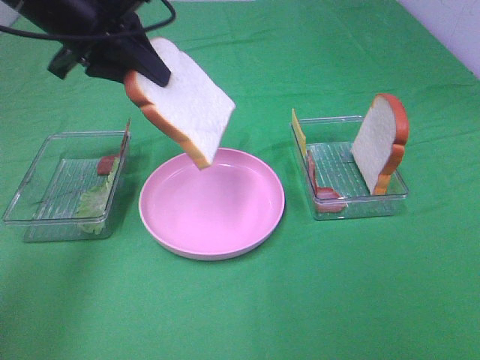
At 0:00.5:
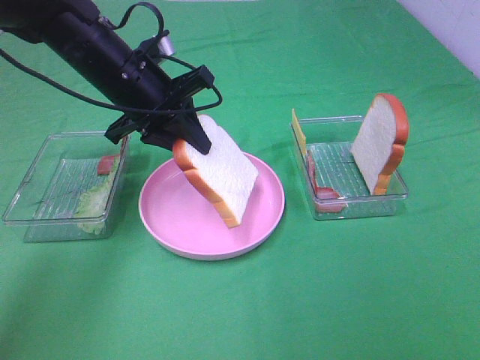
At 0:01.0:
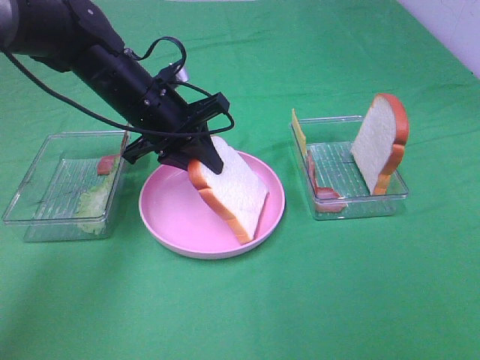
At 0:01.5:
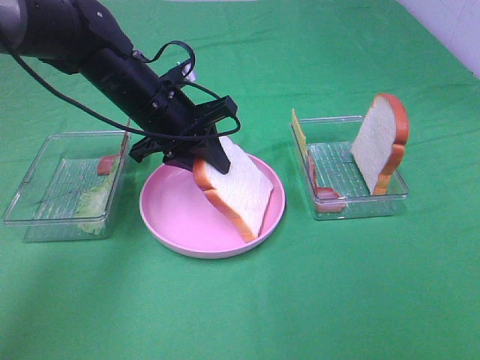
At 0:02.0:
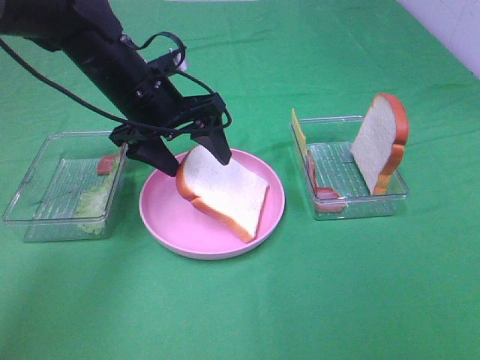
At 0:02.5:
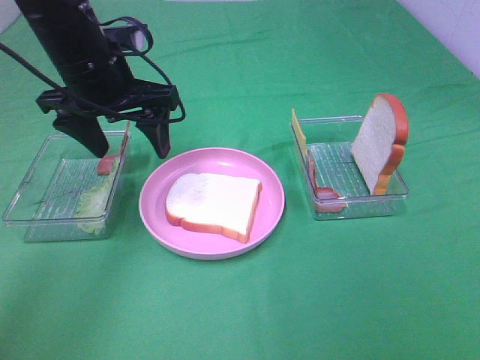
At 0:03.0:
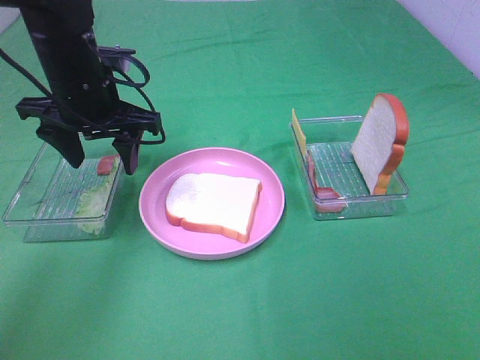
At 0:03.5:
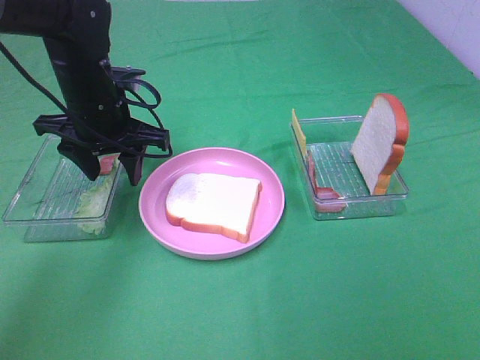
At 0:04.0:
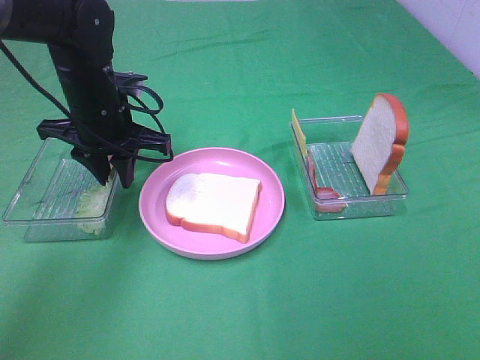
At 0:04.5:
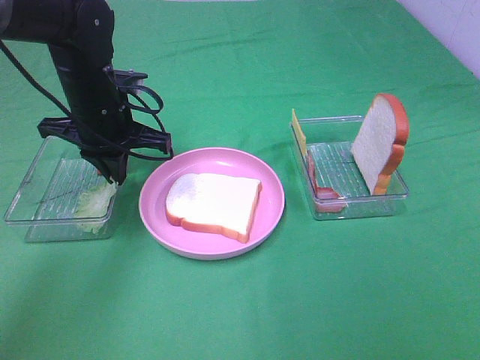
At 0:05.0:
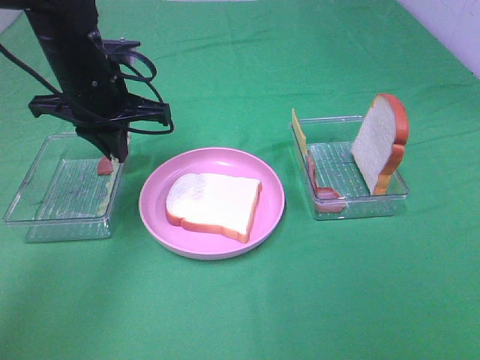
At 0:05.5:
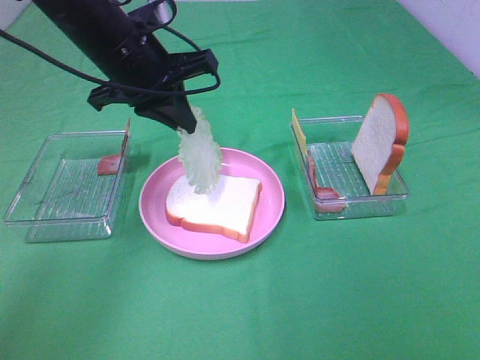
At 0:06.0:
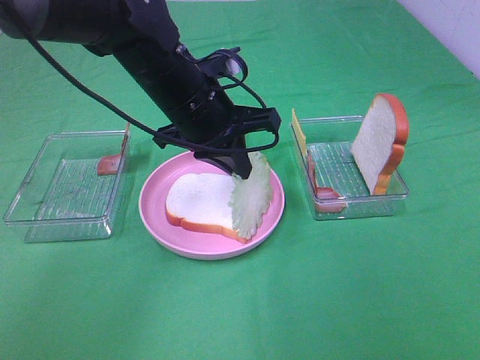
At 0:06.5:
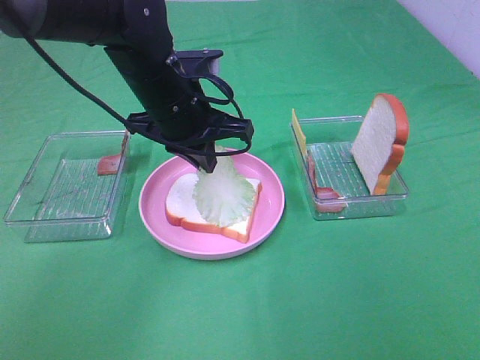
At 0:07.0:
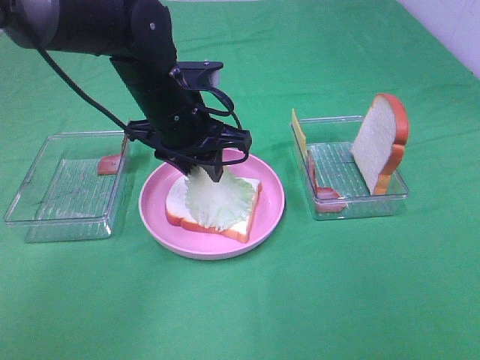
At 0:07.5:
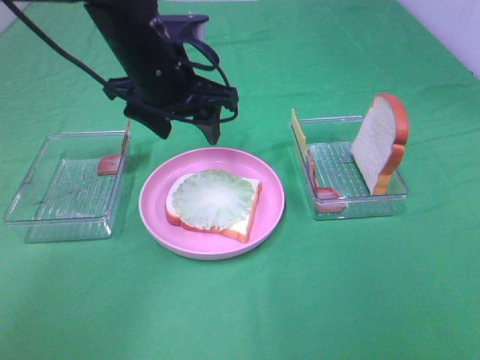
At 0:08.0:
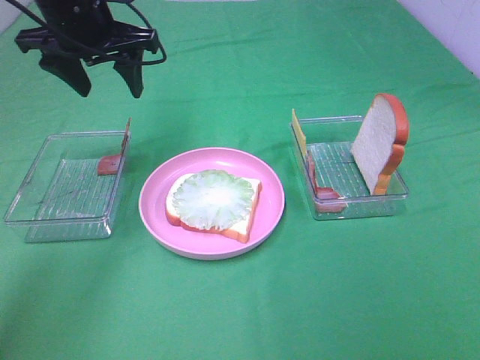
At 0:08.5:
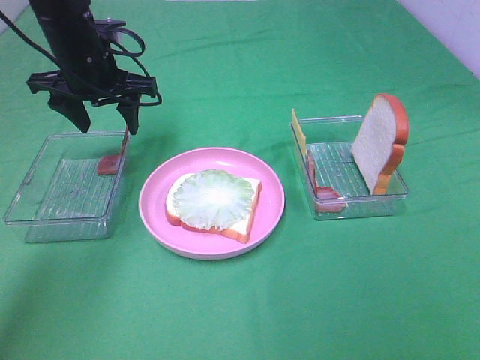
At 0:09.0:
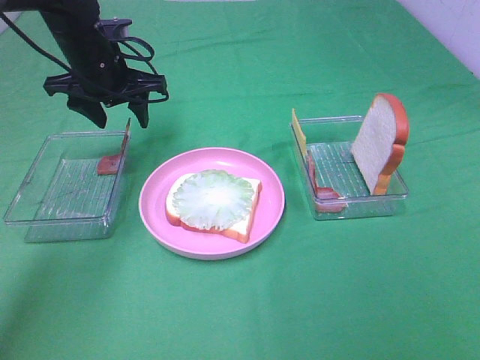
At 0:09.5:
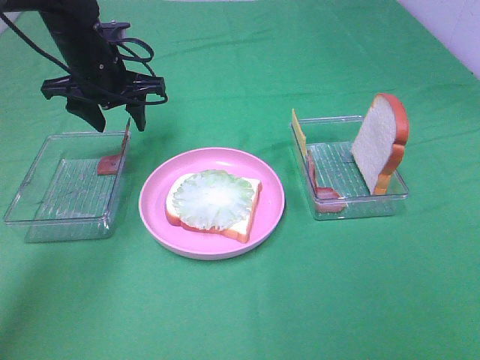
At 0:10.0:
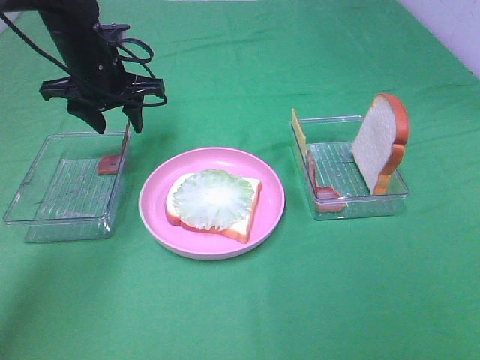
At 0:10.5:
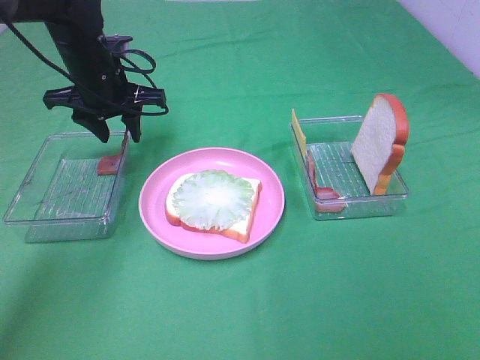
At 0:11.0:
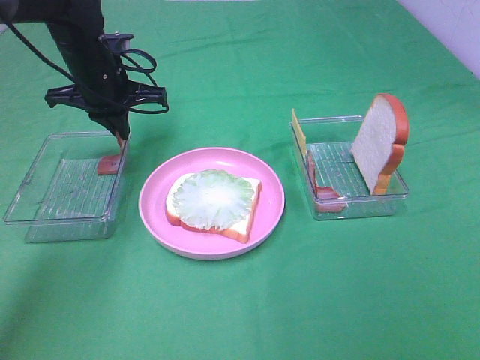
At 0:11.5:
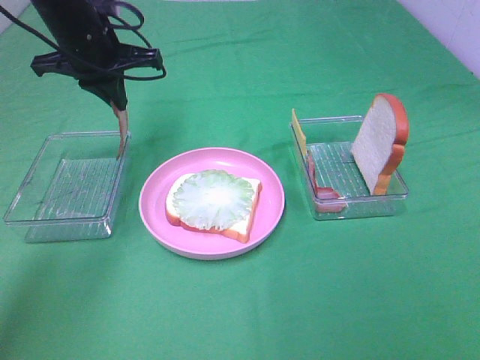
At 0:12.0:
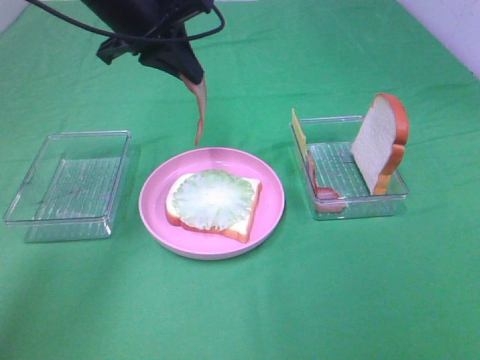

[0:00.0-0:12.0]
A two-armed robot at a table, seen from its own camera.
Task of the whole recording: Make sandwiches.
Step, 0:00.0 to 0:02.0: Left hand:place the bread slice on the plate.
Step, 0:02.5 to 0:04.5: Left hand:grab the lettuce slice.
Step, 0:05.0 to 0:07.0: Left hand:place the lettuce slice on the bread slice.
Step, 0:07.5 to 0:11.0: Left hand:grab the bacon.
0:00.0 to 0:02.0: The left gripper heads downward and to the right, covering about 10 cm, and opens up.
0:02.0 to 0:04.0: The left gripper ends up some 5 cm from where it was, and closes.
0:04.0 to 0:06.0: The left gripper is displaced to the right by some 10 cm.
0:06.0 to 0:08.0: The left gripper is displaced to the left, upward and forward by approximately 15 cm, and opens.
0:08.0 to 0:10.0: The left gripper moves downward, some 10 cm.
0:10.0 to 0:12.0: The left gripper goes roughly 10 cm upward and to the right, and closes.

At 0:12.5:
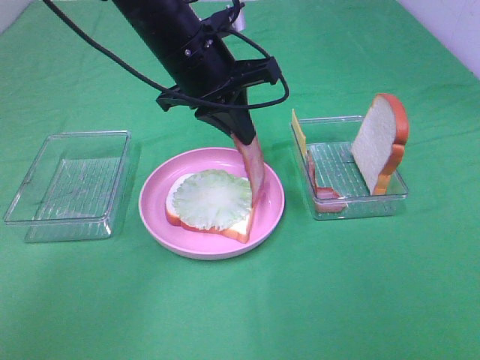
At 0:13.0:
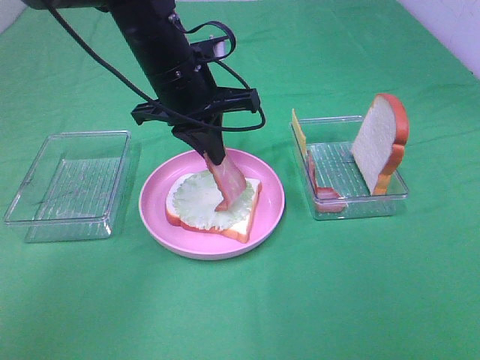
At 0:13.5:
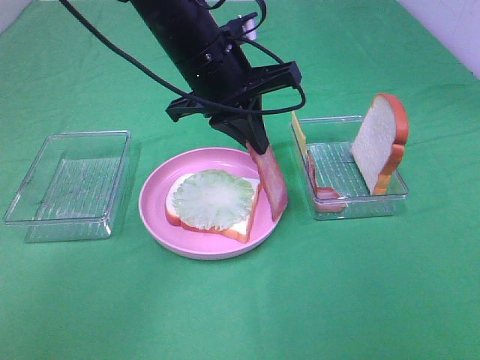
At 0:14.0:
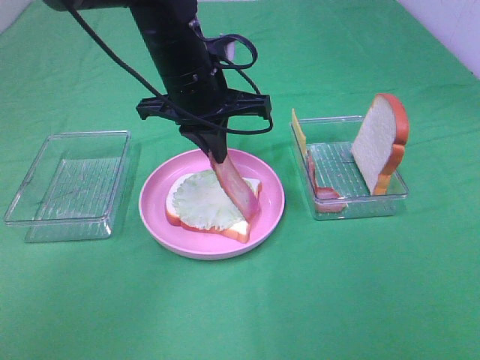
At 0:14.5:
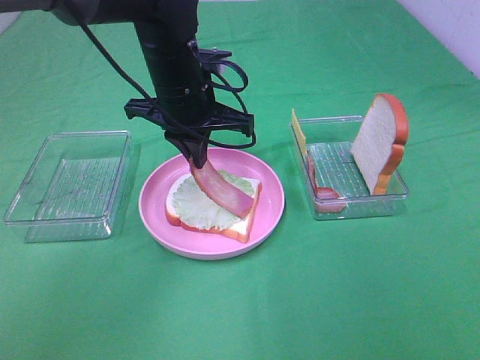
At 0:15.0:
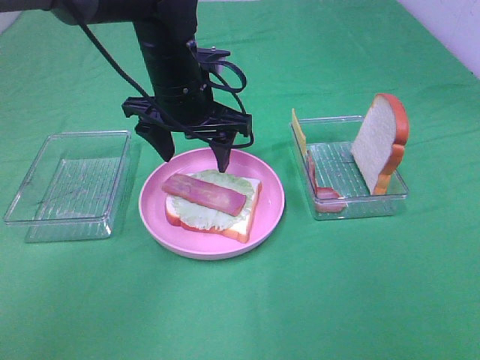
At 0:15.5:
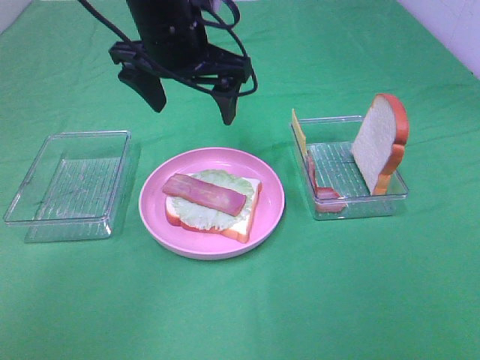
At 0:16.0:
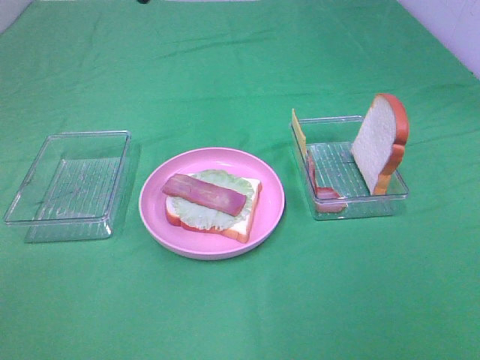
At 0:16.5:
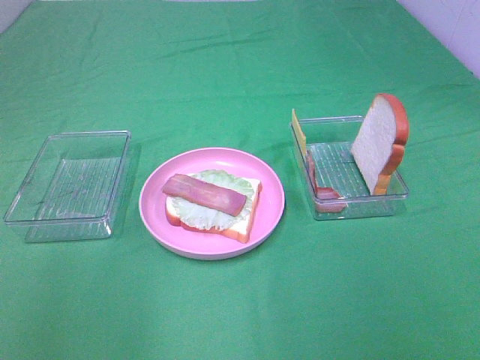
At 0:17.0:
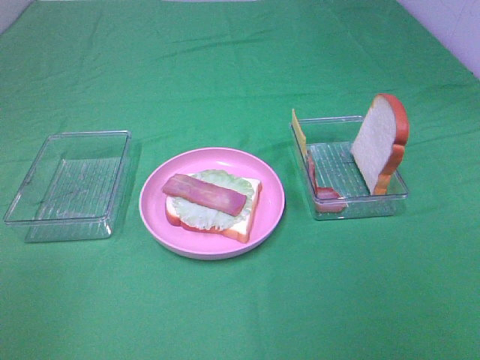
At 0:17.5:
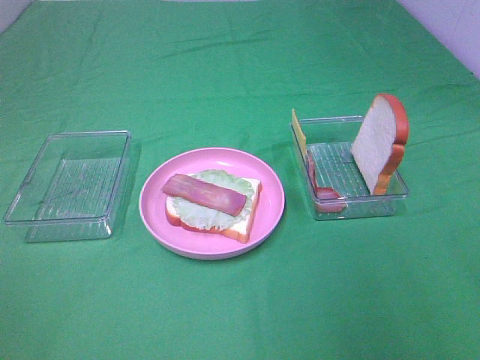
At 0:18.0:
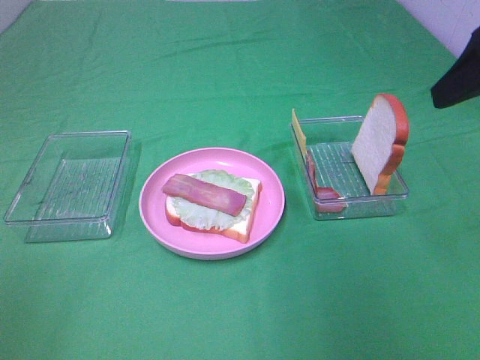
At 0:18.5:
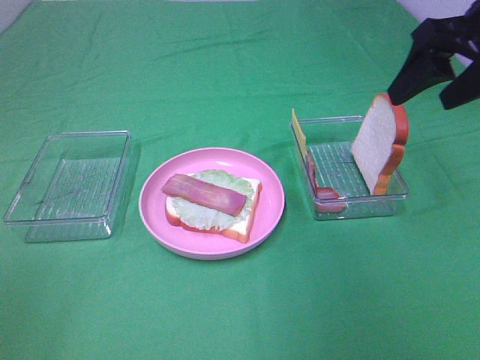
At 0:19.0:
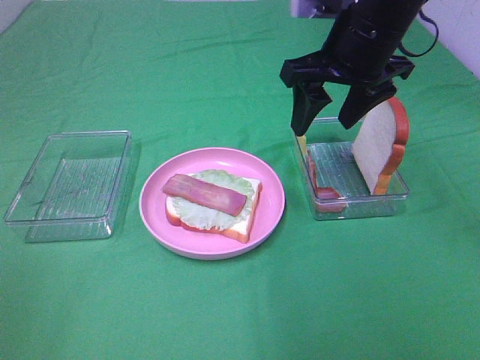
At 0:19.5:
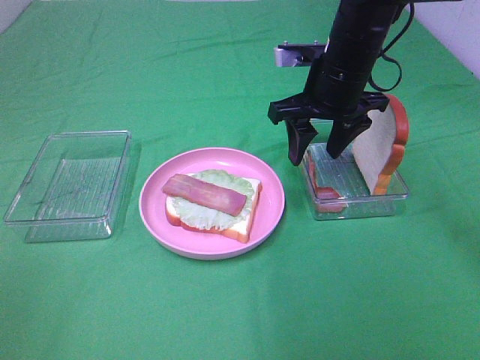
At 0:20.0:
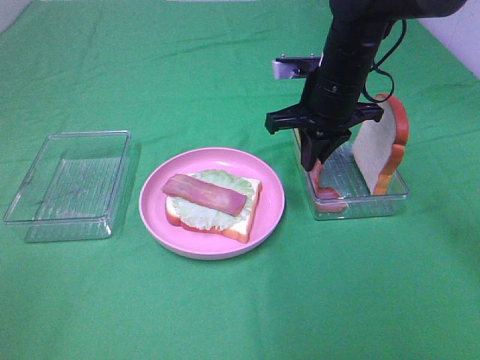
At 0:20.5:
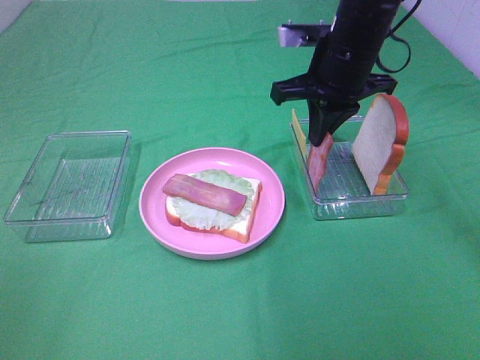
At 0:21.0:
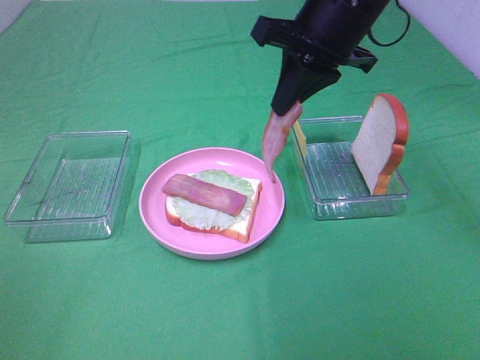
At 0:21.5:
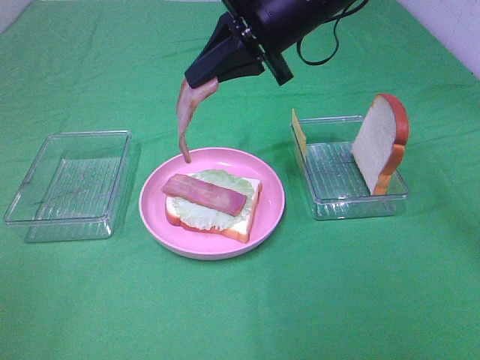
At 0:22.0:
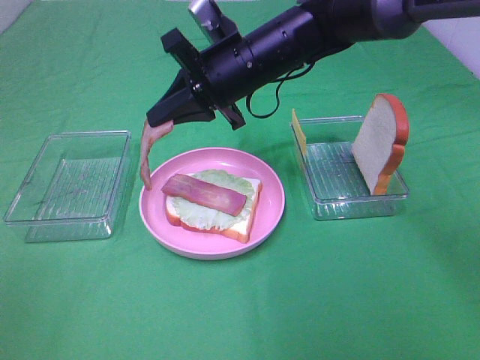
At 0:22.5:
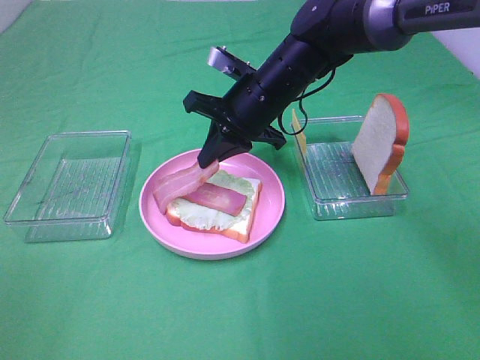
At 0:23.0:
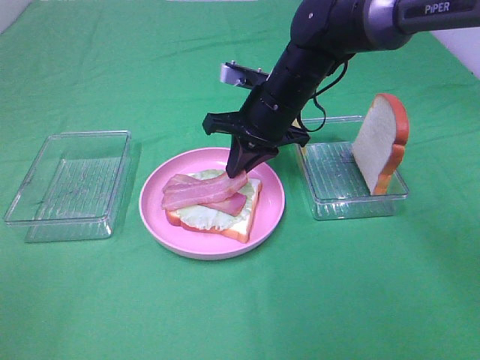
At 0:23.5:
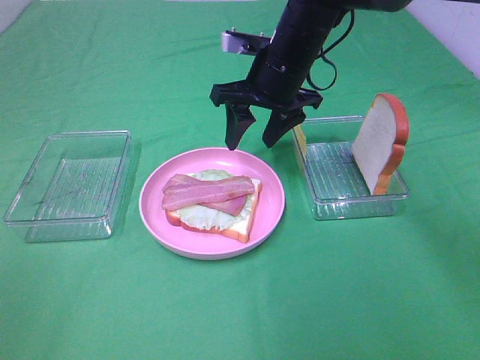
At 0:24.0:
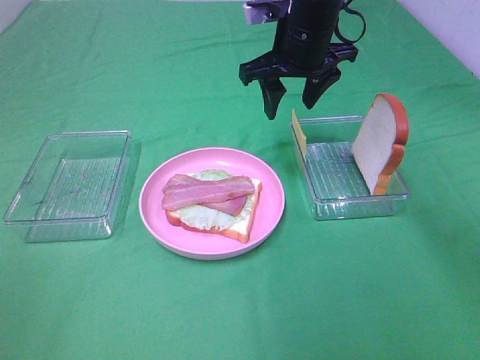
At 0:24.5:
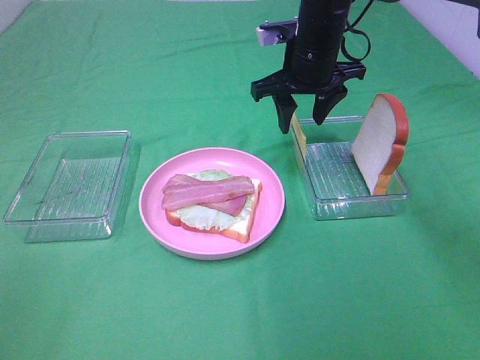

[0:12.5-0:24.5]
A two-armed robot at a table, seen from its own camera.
Task of the whole recording: Make sandwiches.
Step, 0:12.5 to 0:15.0: Left hand:place bacon on lettuce slice.
Step, 0:15.5 to 0:20.0: Right hand:grab the bacon.
Step, 0:20.5 to 0:23.0: Right hand:place bacon on bacon.
0:14.5 to 0:16.5: The left gripper heads backward, upward and to the left, covering roughly 35 cm, and opens.
0:16.5 to 0:18.5: The right gripper is displaced forward by approximately 30 cm, while the left gripper is displaced backward, downward and to the left by roughly 20 cm.
0:18.5 to 0:20.5: The right gripper shifts approximately 15 cm to the left, forward and downward, and closes up.
0:20.5 to 0:22.5: The right gripper heads to the left and downward, covering approximately 10 cm.
0:22.5 to 0:24.5: The right gripper goes roughly 5 cm to the right and forward, and opens its fingers.

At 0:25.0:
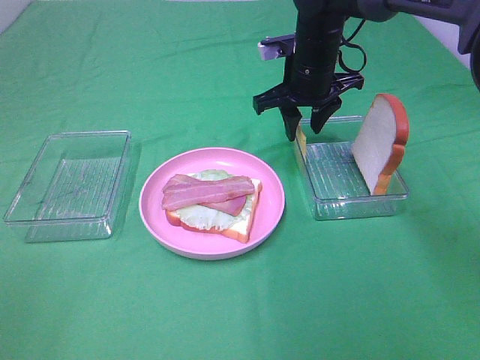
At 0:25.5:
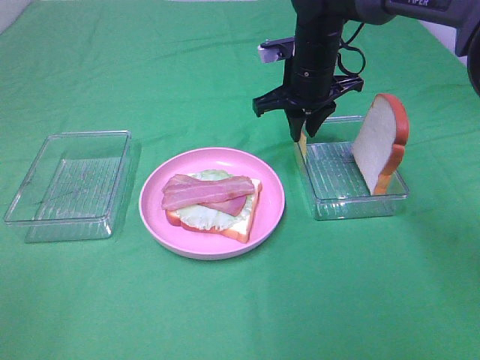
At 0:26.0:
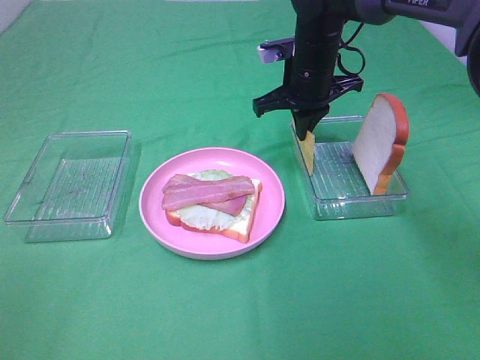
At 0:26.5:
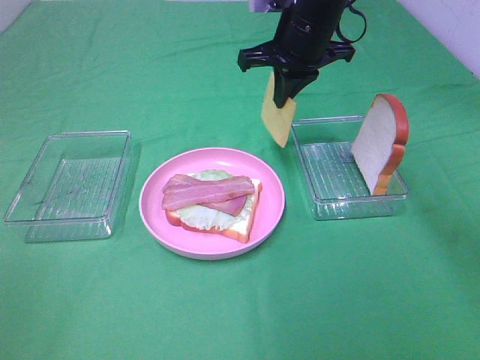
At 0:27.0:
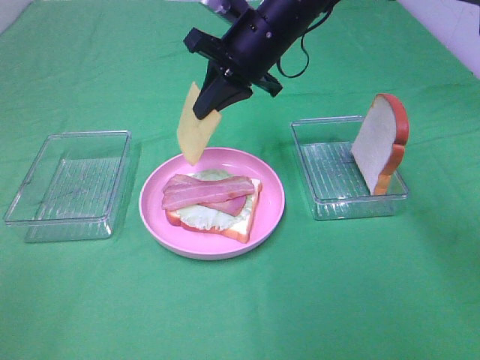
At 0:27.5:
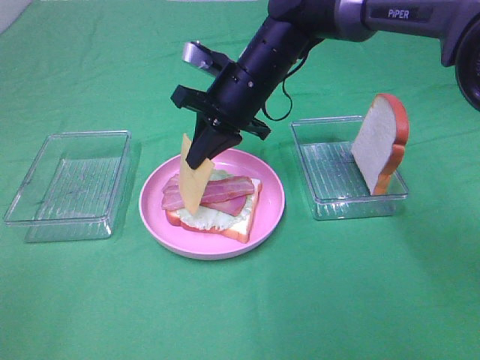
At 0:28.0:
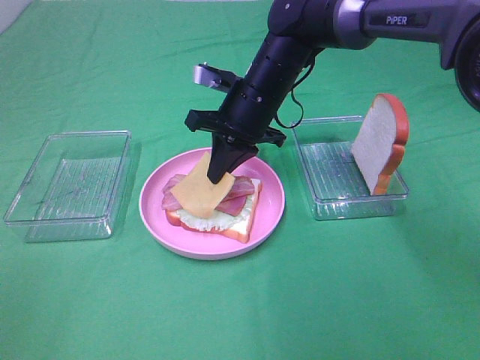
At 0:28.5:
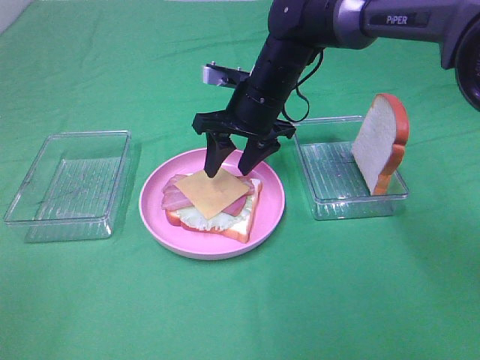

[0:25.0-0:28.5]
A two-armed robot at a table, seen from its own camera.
Task of the whole recording: Make sandwiches.
Step, 0:26.5 to 0:28.5: Right hand:place the cheese slice on top of the bacon.
0:25.0 to 0:27.0: The right gripper shifts roughly 5 cm to the left, and closes up.
0:27.0 to 0:28.5: The right gripper goes approximately 5 cm downward, and opens.
